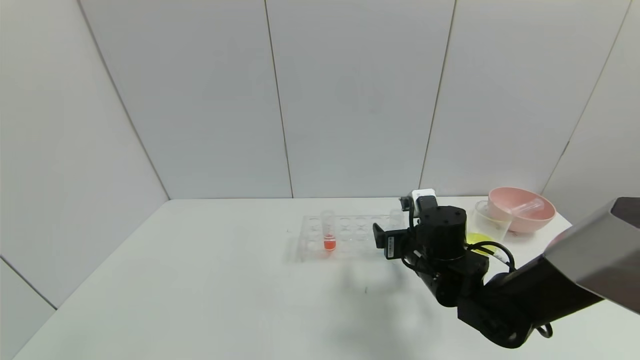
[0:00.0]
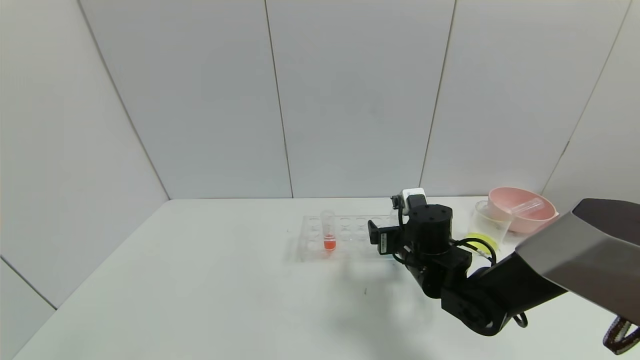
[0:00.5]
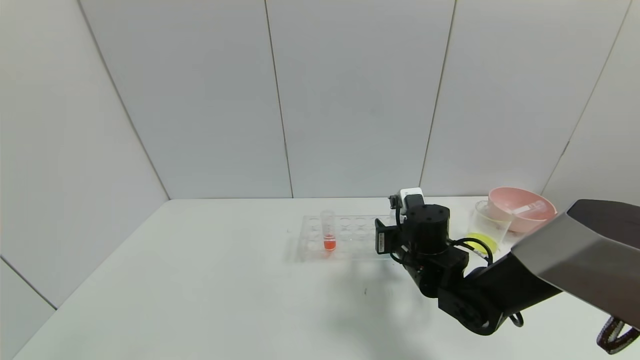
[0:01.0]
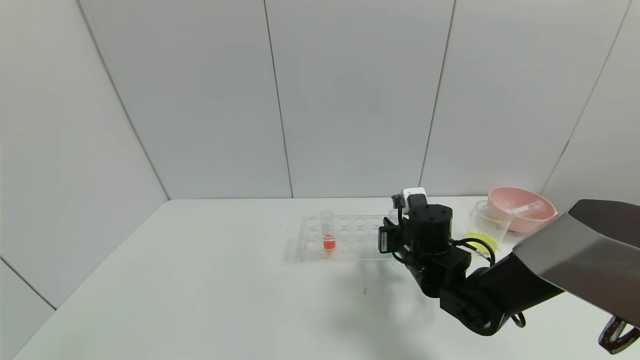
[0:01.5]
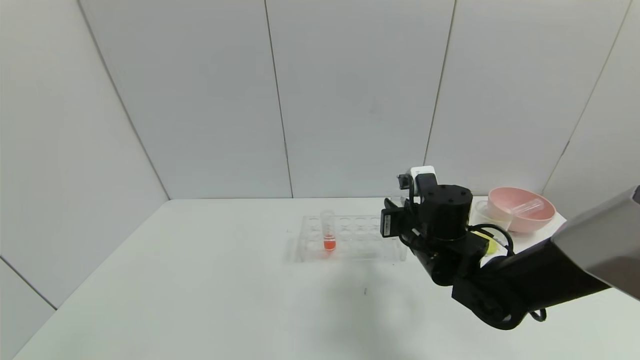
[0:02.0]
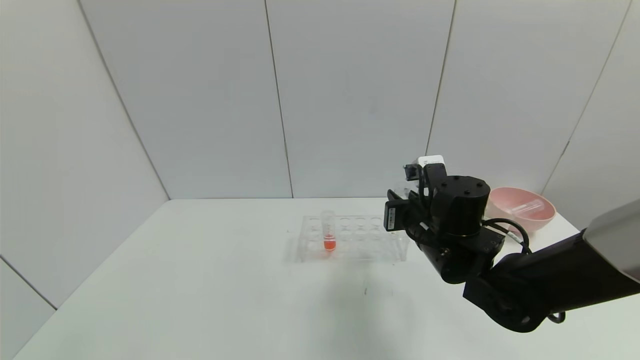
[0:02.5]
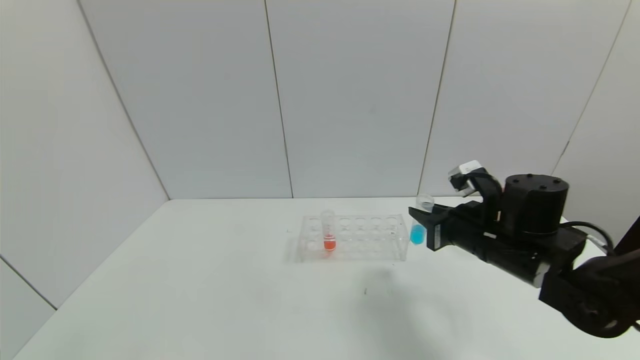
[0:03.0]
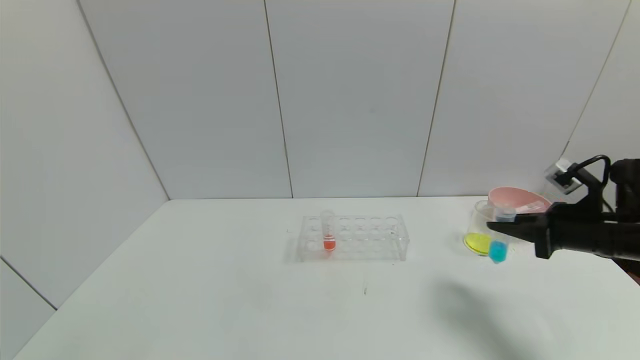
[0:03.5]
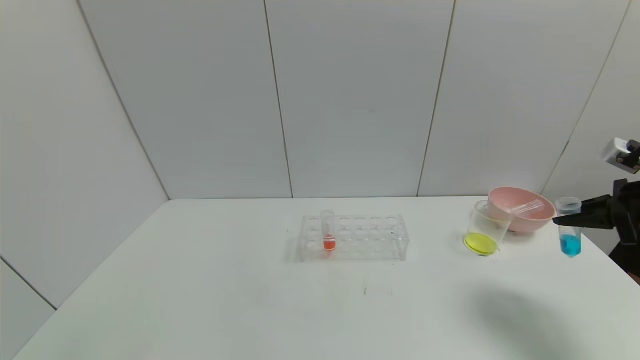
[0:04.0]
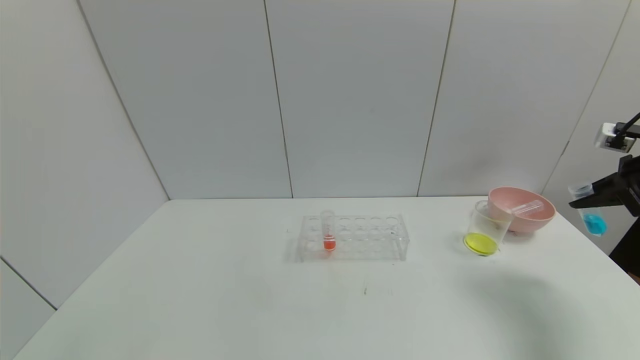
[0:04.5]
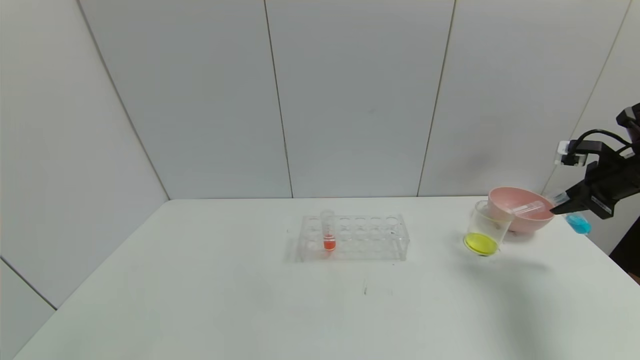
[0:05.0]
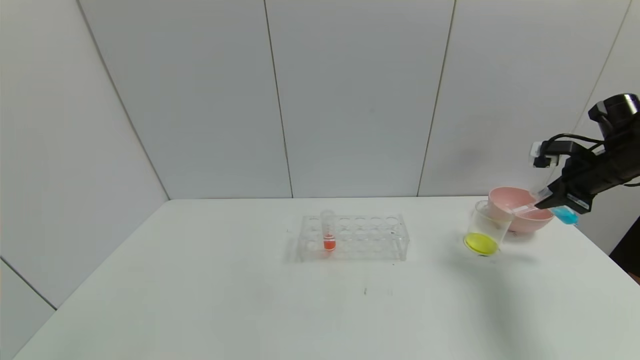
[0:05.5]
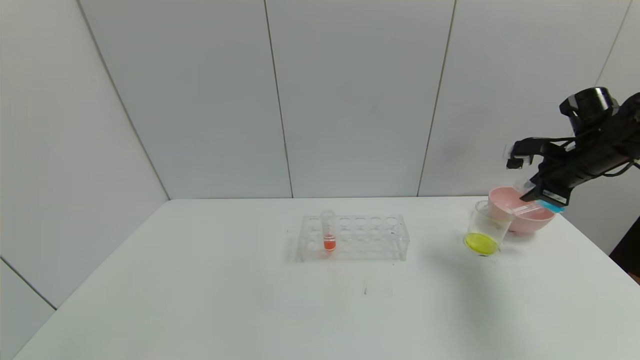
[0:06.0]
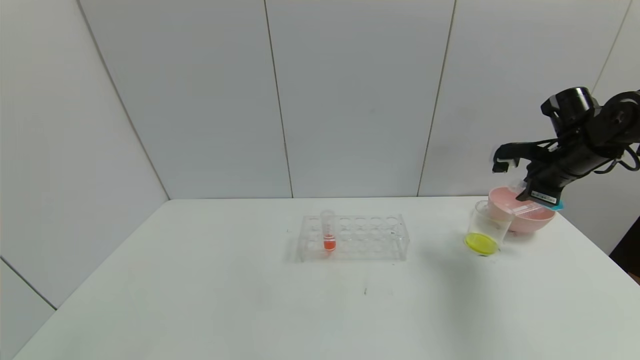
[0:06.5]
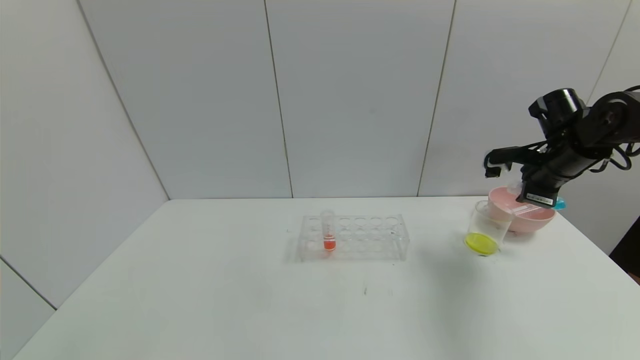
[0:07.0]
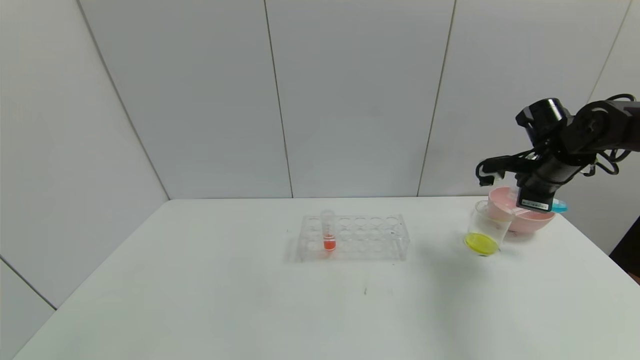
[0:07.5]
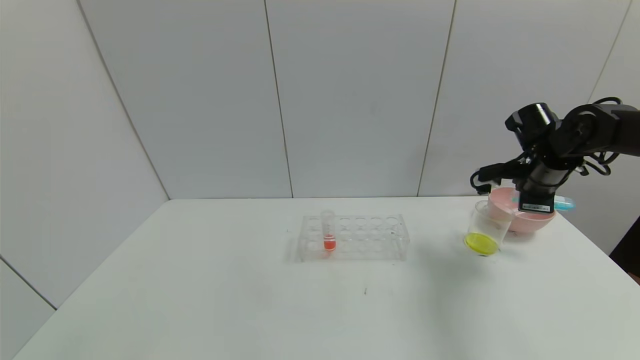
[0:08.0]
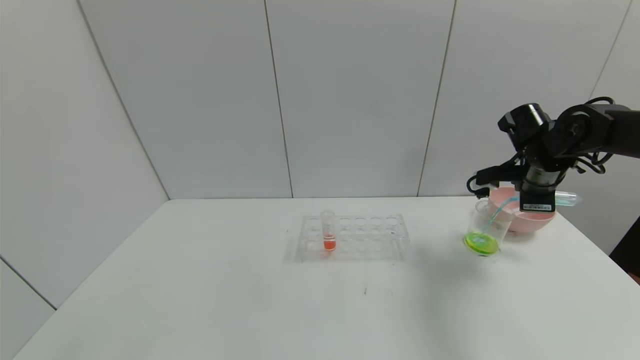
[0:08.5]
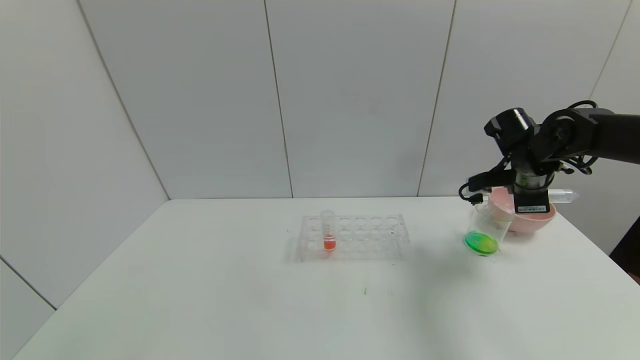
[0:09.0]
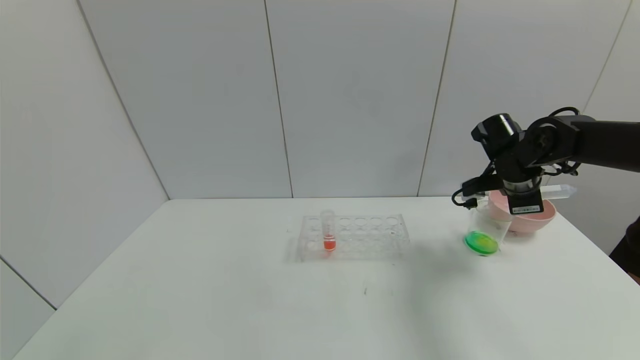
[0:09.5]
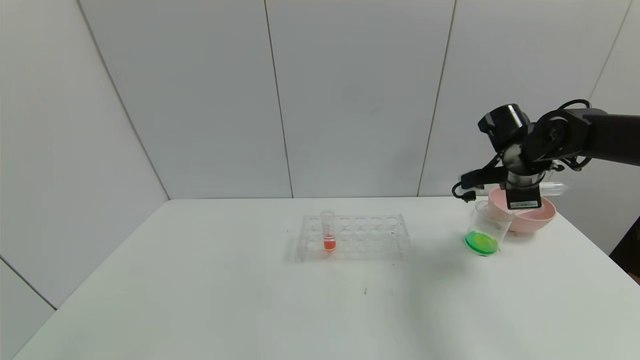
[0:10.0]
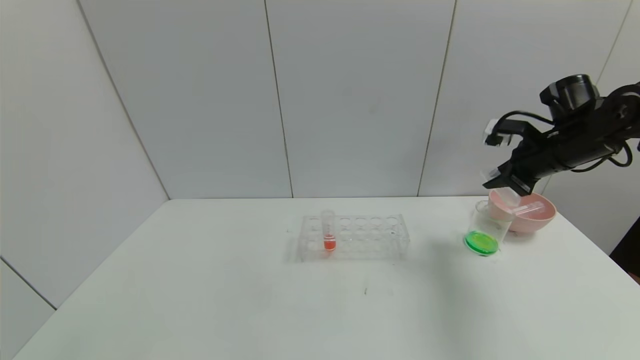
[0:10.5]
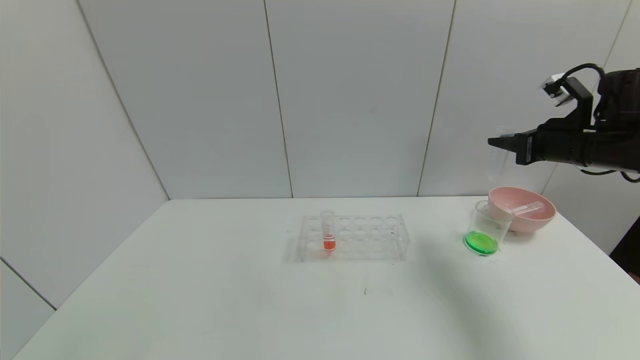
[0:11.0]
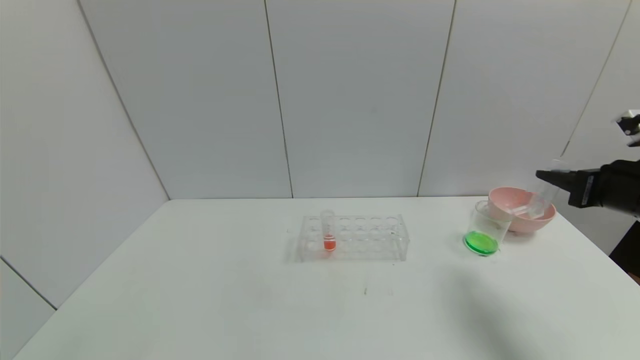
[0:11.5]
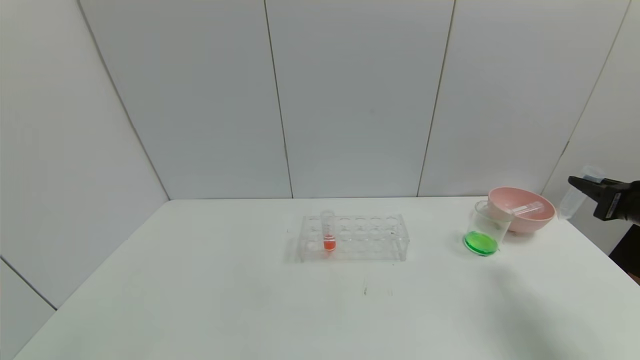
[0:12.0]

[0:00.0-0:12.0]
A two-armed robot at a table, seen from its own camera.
Task of the whole recording: pick up the test tube with yellow pigment and the test tube with blue pigment by grippers and pour them into the beaker.
Step, 0:00.0 to 0:03.0: Pick up the test tube containing the blue reagent with right gripper.
Step, 0:03.5 to 0:10.5: Pour the blue reagent into the graduated cylinder with right gripper.
0:00.0 to 0:02.0: The right gripper closes up.
0:02.0 to 0:04.0: The right gripper is displaced to the right by roughly 30 cm.
0:04.0 to 0:06.0: The right gripper heads forward and to the left, covering approximately 15 cm.
0:06.0 to 0:08.0: The right gripper goes about 5 cm to the left.
0:08.0 to 0:10.0: The grippers move only a little.
0:10.0 to 0:12.0: The right gripper goes about 20 cm backward and to the right.

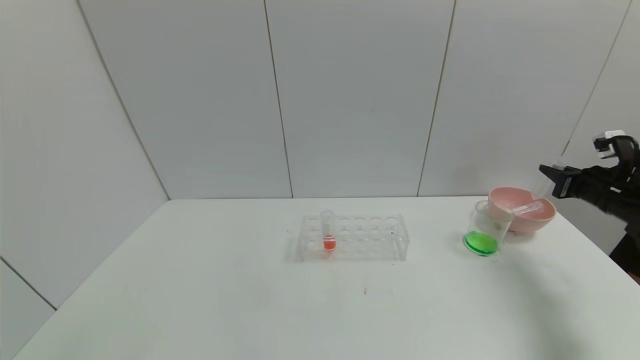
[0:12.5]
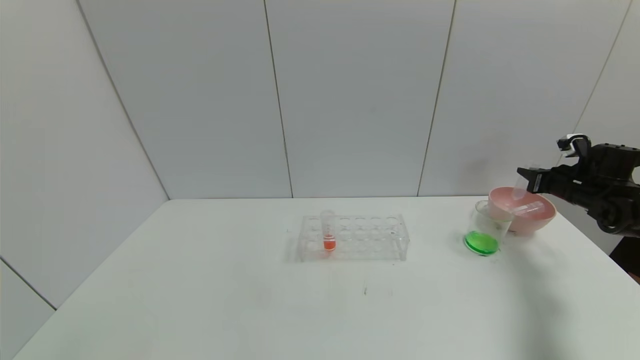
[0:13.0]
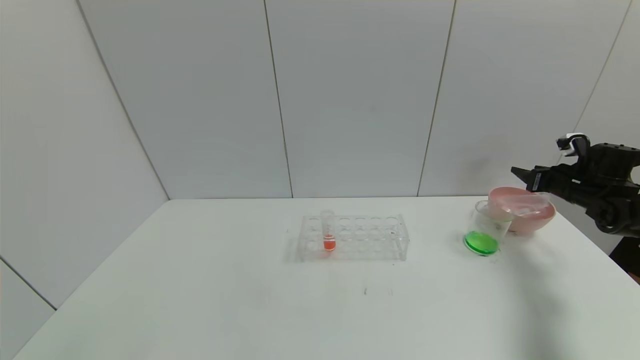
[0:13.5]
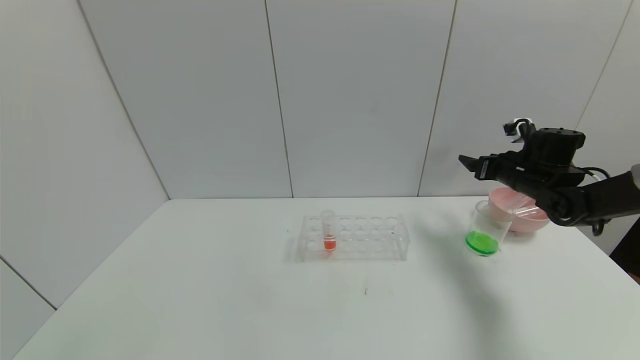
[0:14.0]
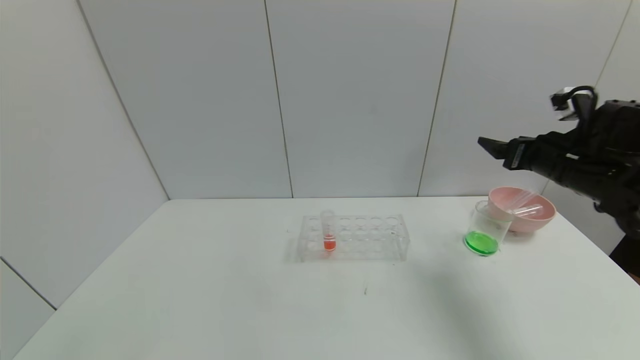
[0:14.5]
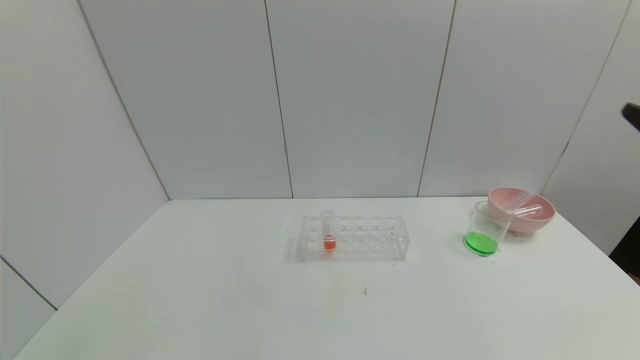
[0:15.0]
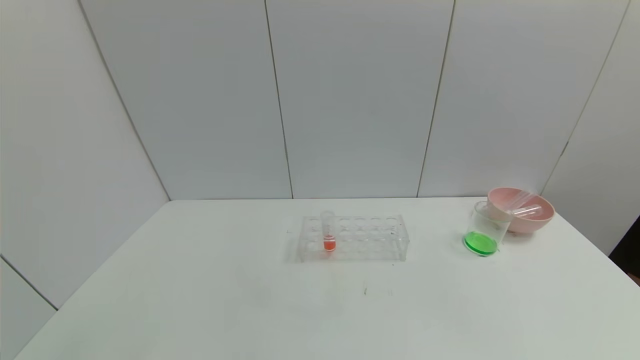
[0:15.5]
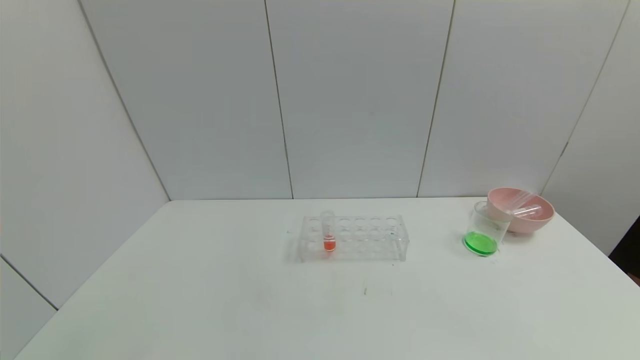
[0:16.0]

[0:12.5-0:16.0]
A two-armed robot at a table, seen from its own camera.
Task of the whole recording: pick up the test tube with yellow pigment and the test tube with blue pigment by grippers and pour them into the beaker.
Step, 0:12.5 to 0:14.5: Place the test tube into the bowl with right gripper.
0:12.5 to 0:14.5: The right gripper is displaced to the left and upward by approximately 15 cm, and opens up.
0:14.5 to 0:16.0: The right gripper is displaced backward by some 40 cm.

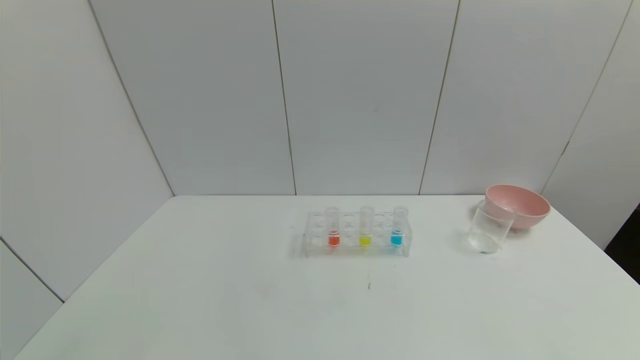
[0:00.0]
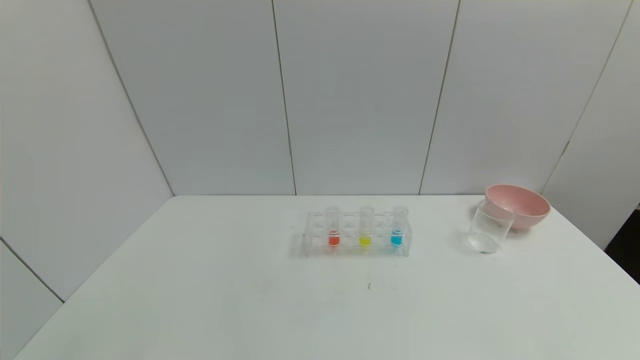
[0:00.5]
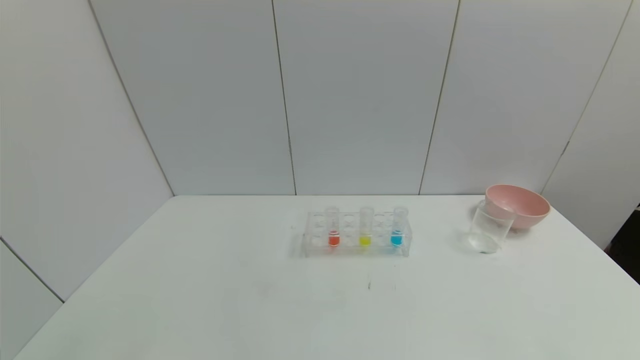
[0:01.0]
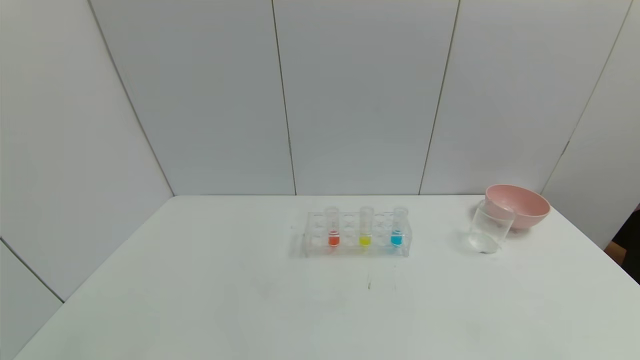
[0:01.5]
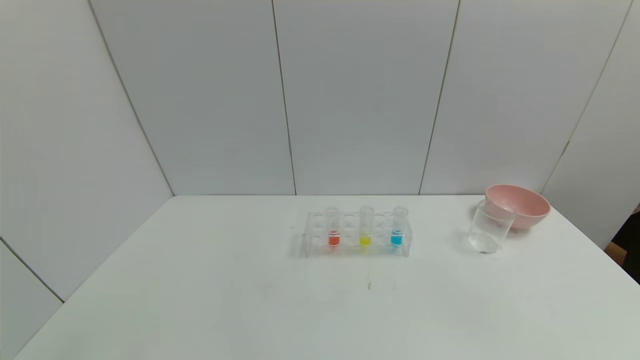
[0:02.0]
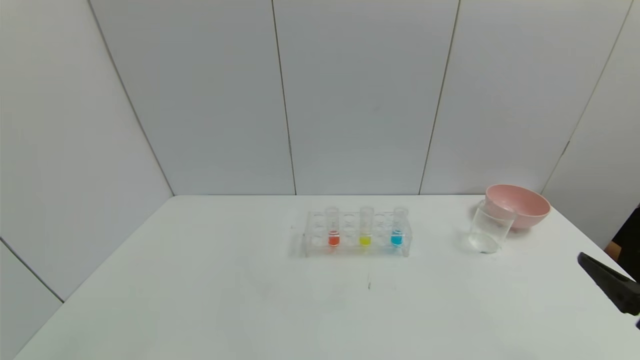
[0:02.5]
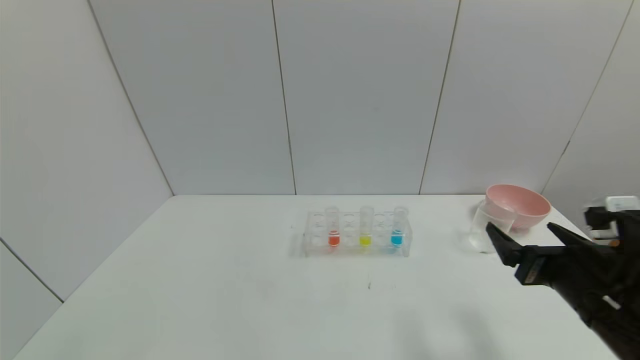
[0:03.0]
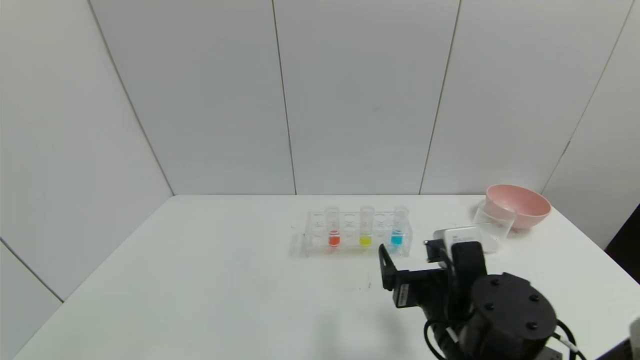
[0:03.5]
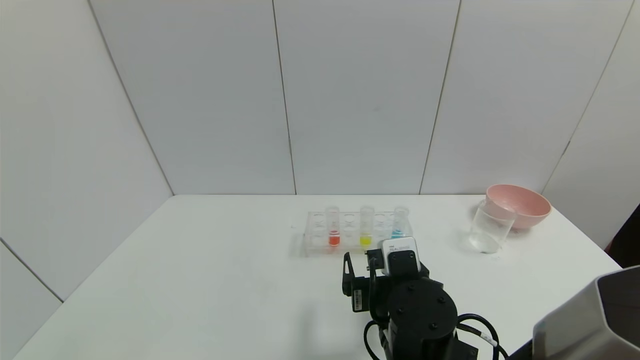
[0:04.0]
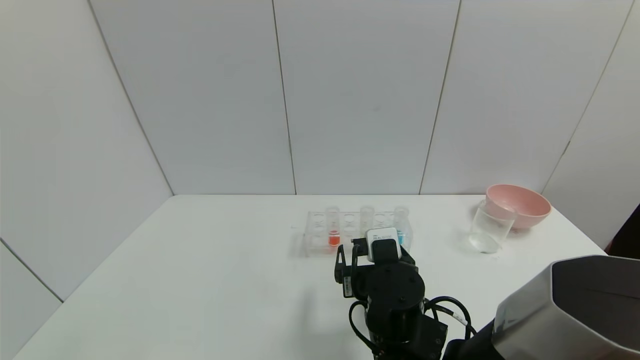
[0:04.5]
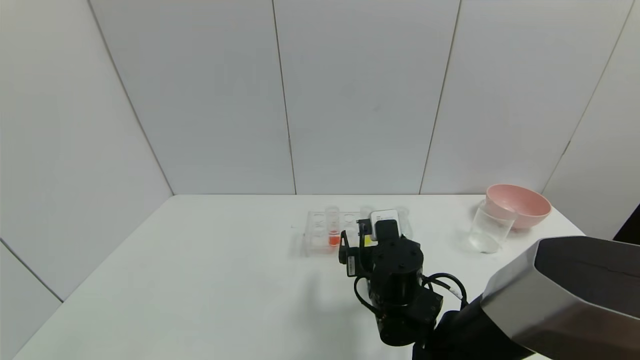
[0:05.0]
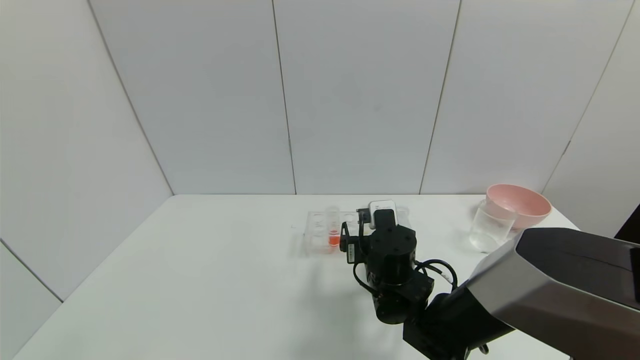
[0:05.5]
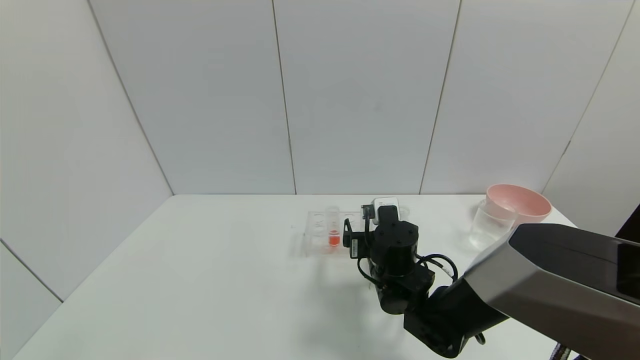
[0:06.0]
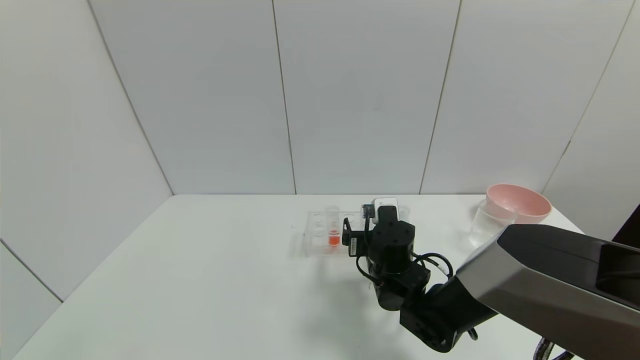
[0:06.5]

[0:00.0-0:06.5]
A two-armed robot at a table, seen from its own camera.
Task of the whole recording: pick up the test tube with yellow pigment and the test tube with blue pigment by grippers and pour them into the beaker.
0:02.0 to 0:04.5: The right gripper heads to the left and forward, covering some 35 cm.
0:04.5 to 0:06.5: The right gripper moves forward, about 10 cm.
